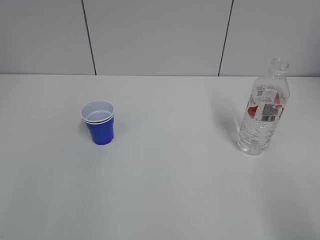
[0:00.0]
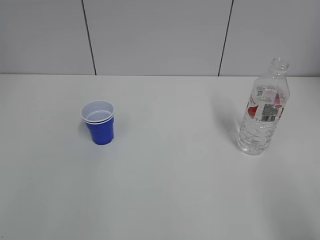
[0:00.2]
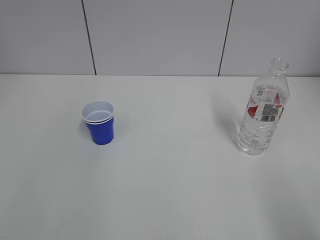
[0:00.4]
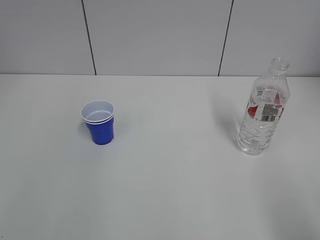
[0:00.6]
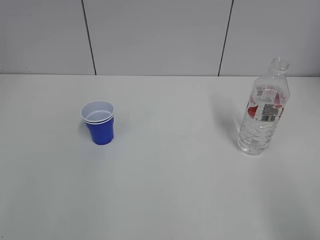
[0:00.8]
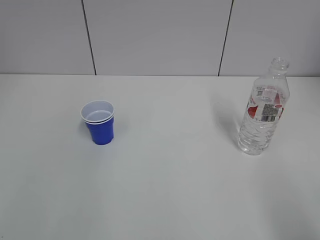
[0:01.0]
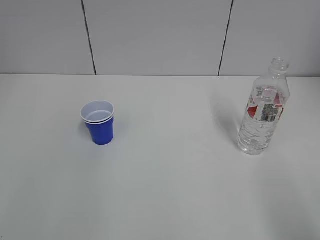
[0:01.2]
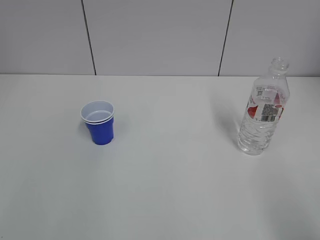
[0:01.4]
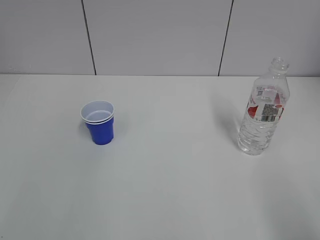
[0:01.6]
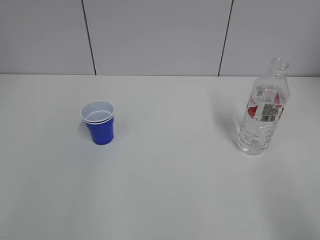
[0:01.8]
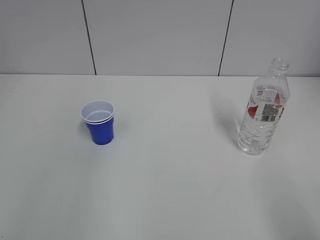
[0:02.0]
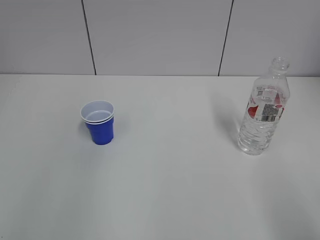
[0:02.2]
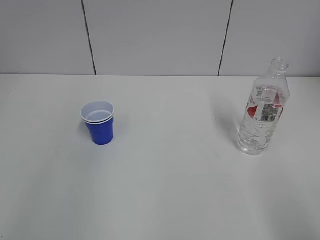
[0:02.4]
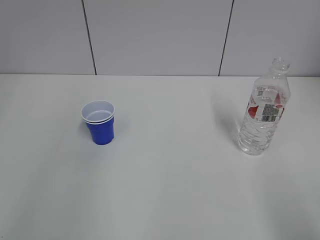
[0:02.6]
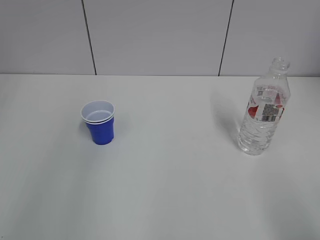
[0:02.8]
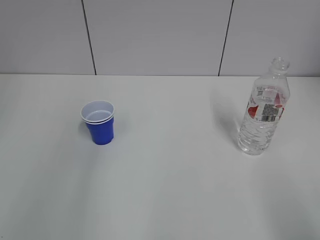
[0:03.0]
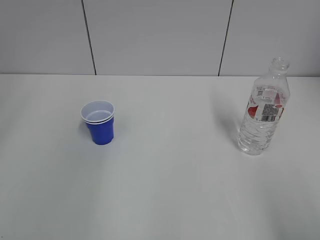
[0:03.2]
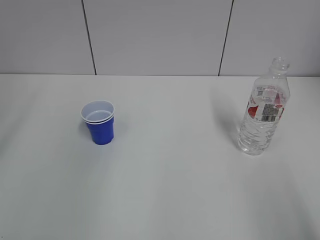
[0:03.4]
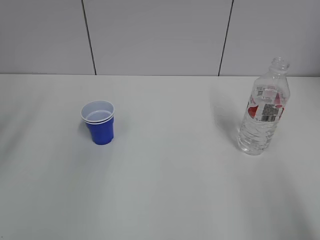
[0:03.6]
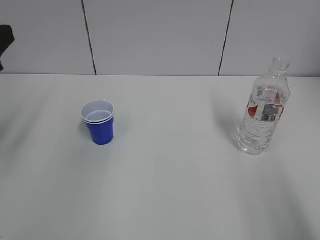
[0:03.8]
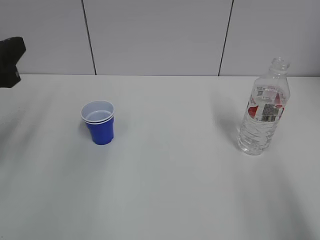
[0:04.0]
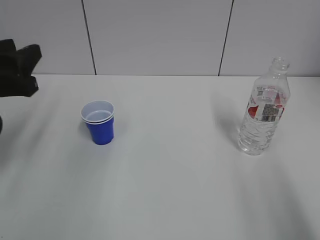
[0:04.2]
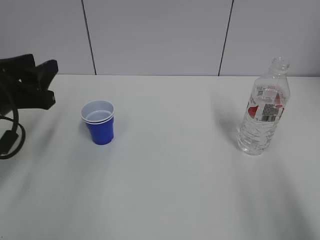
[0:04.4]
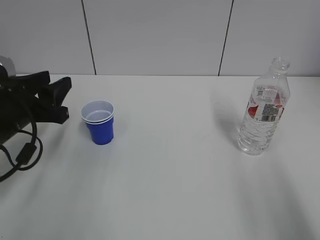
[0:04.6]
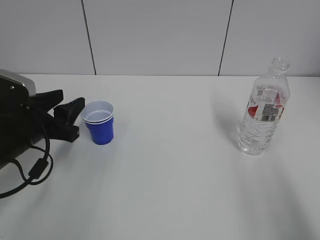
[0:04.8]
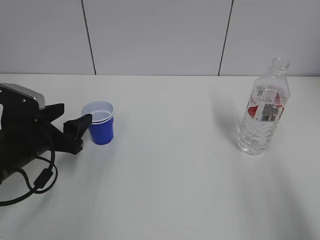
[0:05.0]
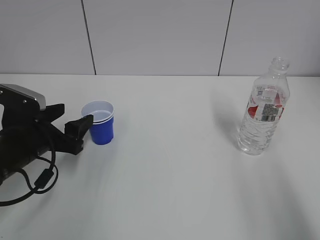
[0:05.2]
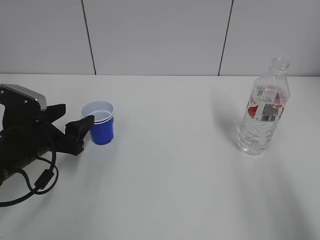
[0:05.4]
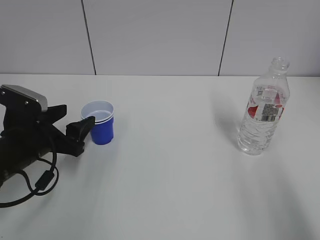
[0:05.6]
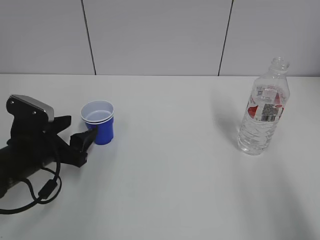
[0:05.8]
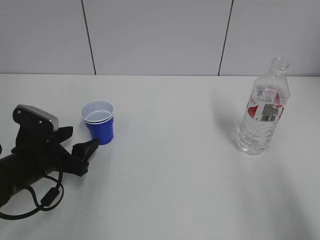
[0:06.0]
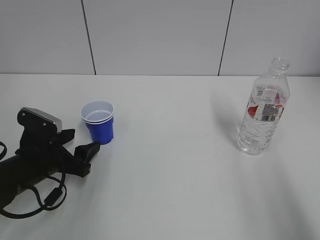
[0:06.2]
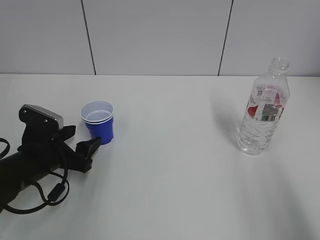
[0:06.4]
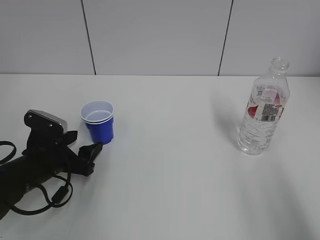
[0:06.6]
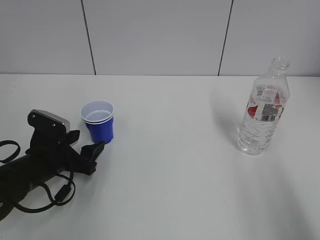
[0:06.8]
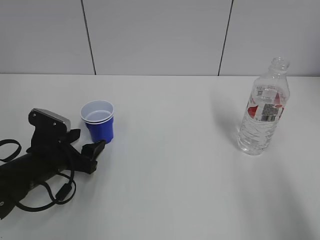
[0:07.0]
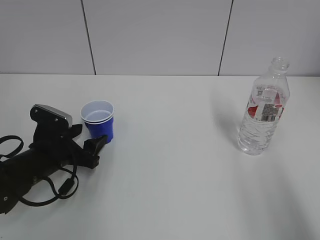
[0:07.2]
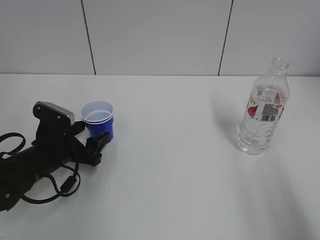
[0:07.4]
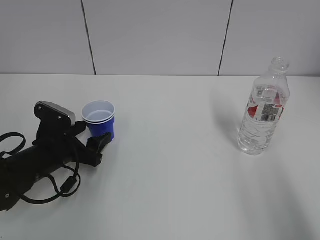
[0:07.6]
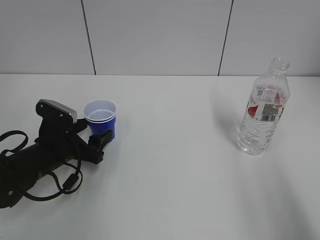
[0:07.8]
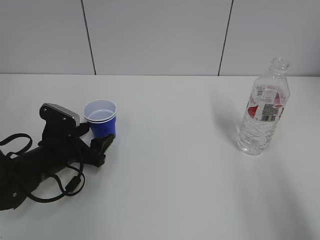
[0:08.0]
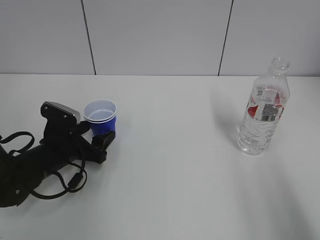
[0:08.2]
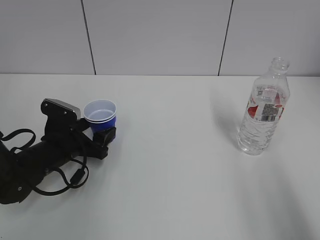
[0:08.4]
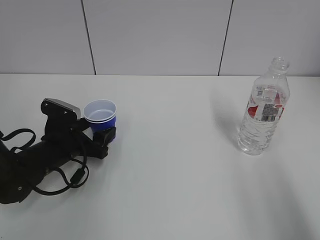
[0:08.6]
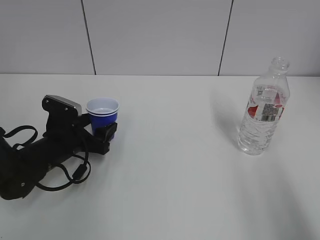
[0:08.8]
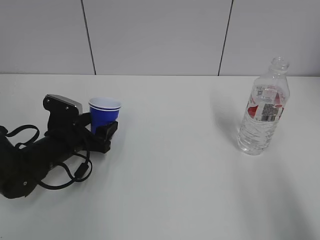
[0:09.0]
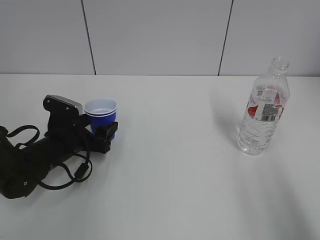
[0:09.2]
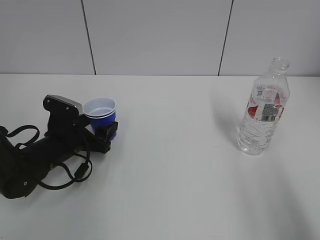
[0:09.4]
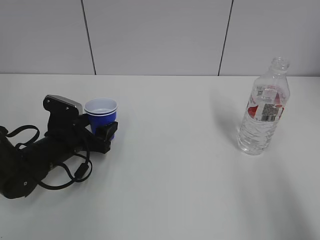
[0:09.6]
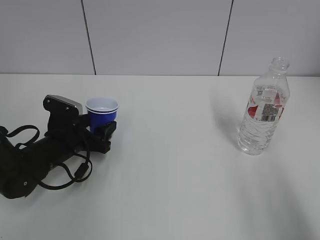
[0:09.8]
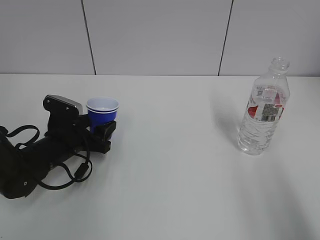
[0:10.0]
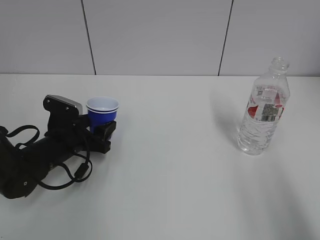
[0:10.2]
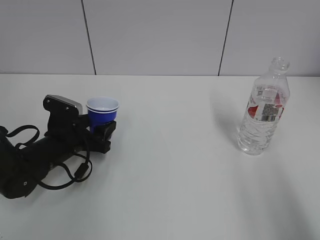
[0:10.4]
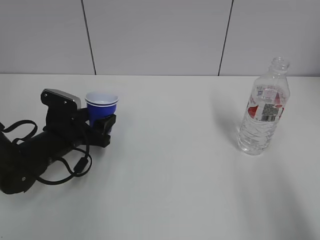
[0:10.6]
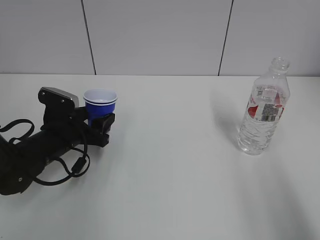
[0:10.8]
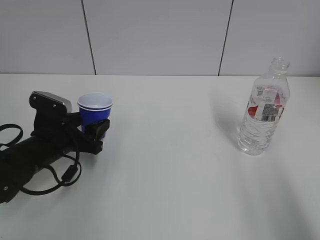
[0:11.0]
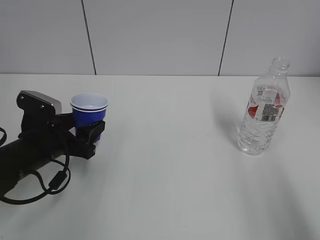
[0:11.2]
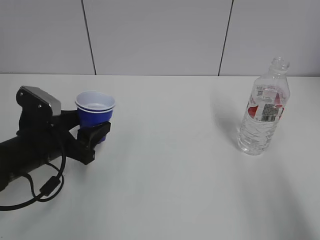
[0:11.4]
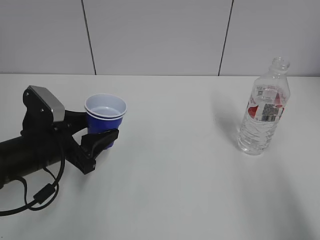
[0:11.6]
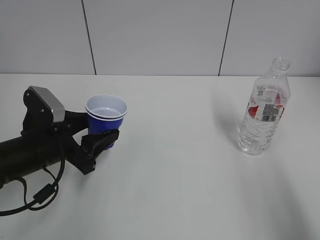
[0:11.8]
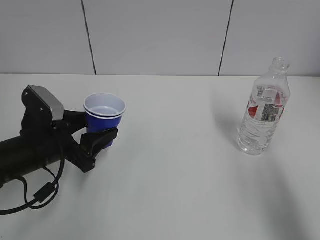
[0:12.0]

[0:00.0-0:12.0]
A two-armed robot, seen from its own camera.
Step, 0:00.0 to 0:09.4: Grab the paper cup with the left hand.
Step, 0:09.6 to 0:11.0: Lift the paper cup with the left hand.
0:03.0 to 0:04.4: The left gripper travels downward, forward and to the right by about 20 cm.
0:04.4 to 0:06.0: The left gripper heads downward, covering some 15 cm, and opens.
0:06.0 to 0:07.6: The grippers stay close to where they were, moving slightly.
0:07.6 to 0:09.0: There are only small adjustments of the grippers.
0:09.0 to 0:10.4: Both grippers stay put.
0:10.4 to 0:12.0: The left gripper is displaced upward and backward by roughly 10 cm.

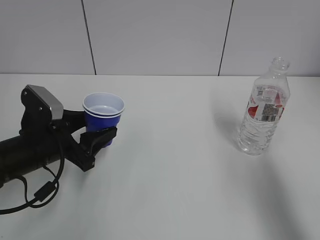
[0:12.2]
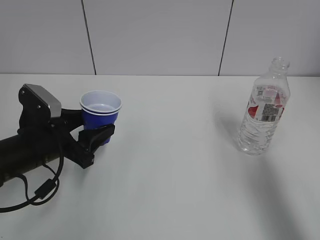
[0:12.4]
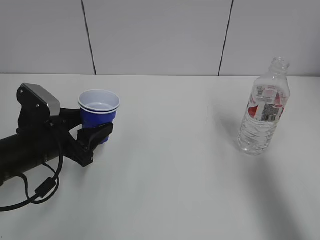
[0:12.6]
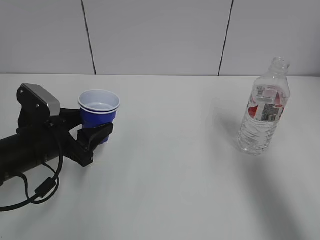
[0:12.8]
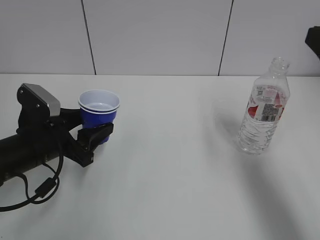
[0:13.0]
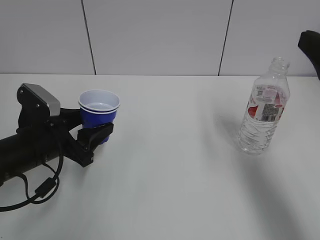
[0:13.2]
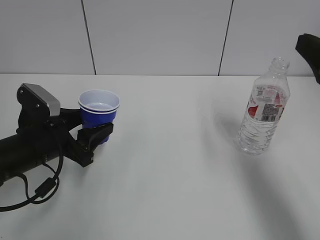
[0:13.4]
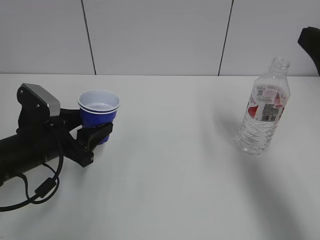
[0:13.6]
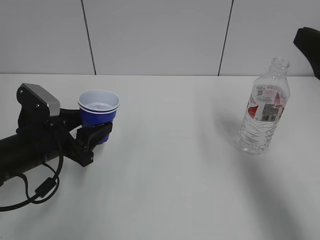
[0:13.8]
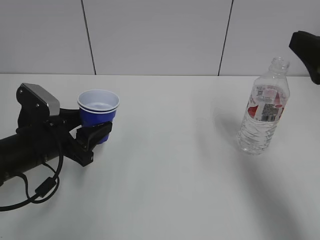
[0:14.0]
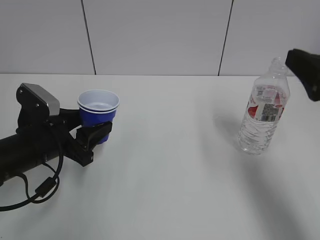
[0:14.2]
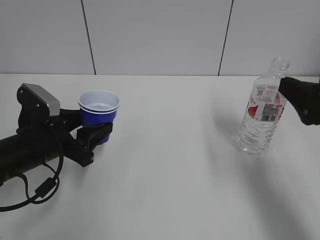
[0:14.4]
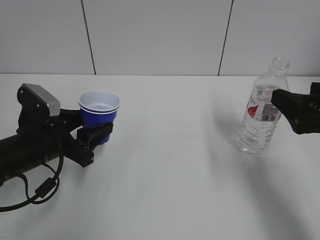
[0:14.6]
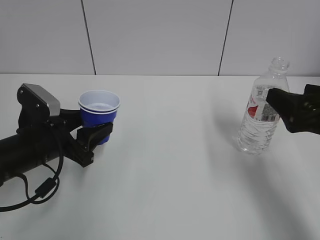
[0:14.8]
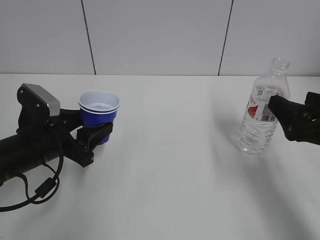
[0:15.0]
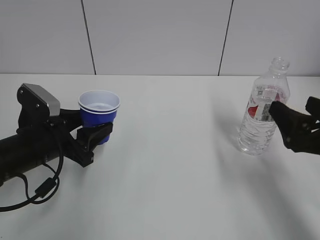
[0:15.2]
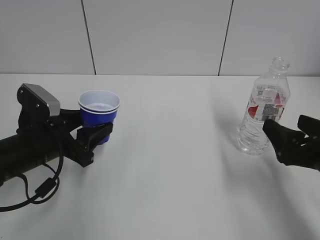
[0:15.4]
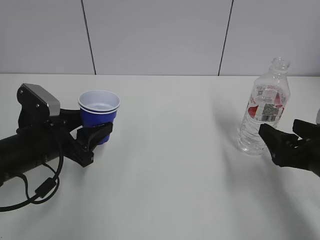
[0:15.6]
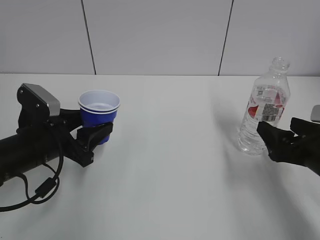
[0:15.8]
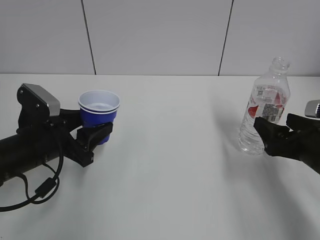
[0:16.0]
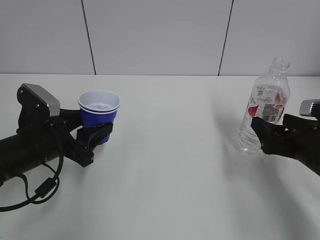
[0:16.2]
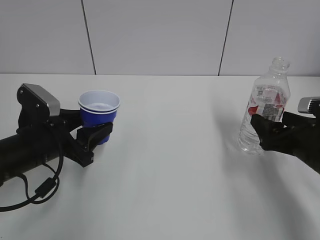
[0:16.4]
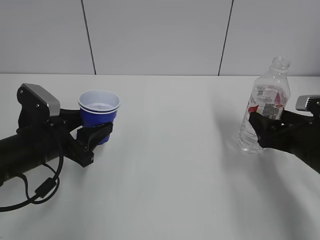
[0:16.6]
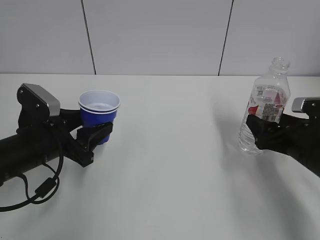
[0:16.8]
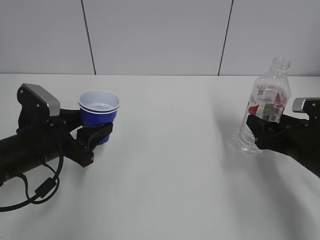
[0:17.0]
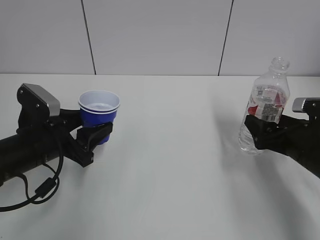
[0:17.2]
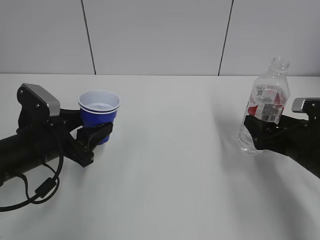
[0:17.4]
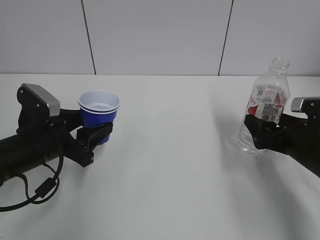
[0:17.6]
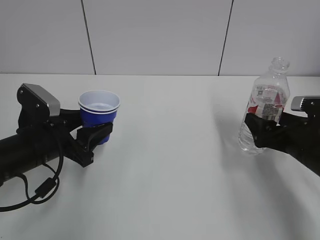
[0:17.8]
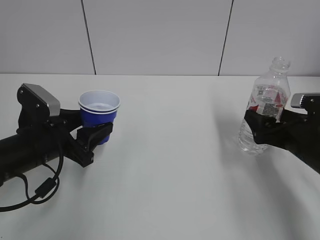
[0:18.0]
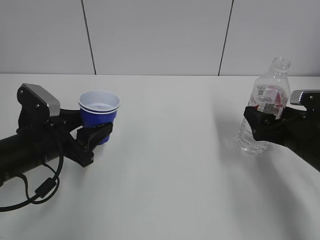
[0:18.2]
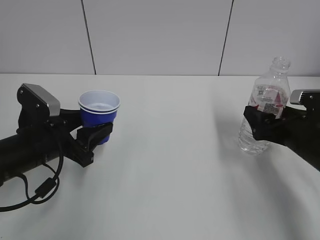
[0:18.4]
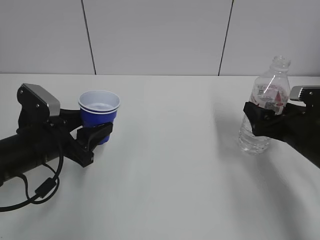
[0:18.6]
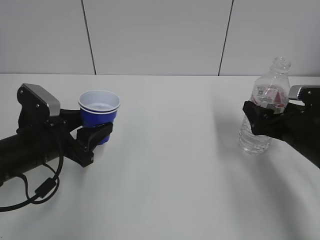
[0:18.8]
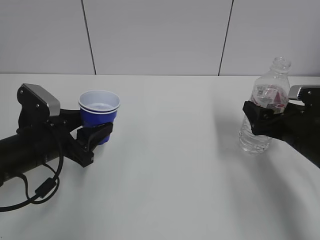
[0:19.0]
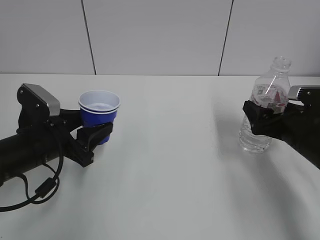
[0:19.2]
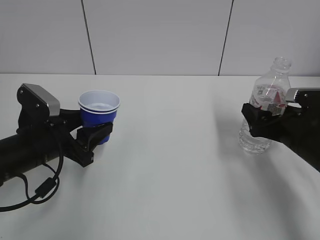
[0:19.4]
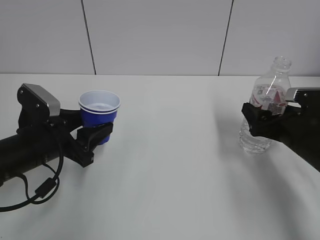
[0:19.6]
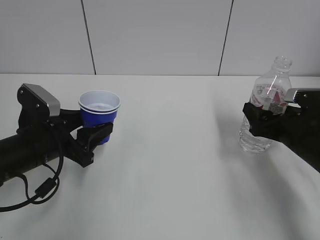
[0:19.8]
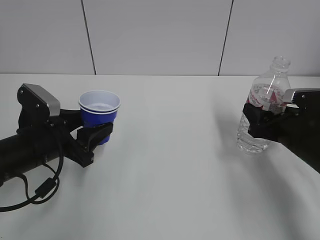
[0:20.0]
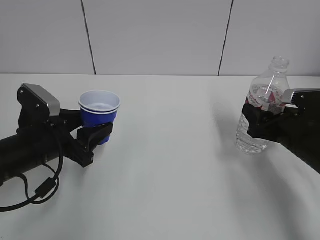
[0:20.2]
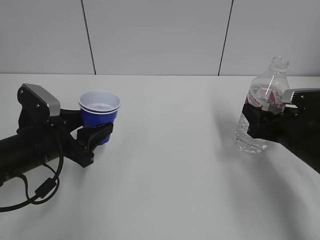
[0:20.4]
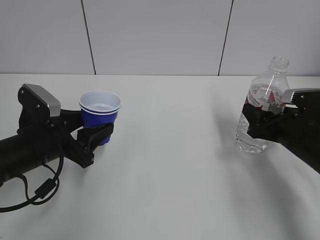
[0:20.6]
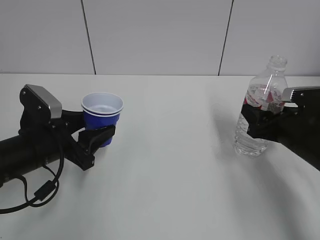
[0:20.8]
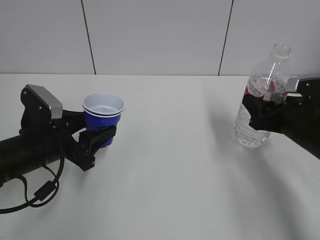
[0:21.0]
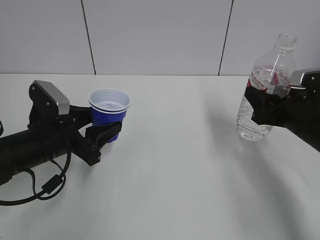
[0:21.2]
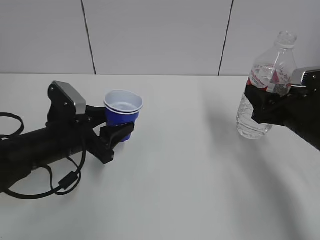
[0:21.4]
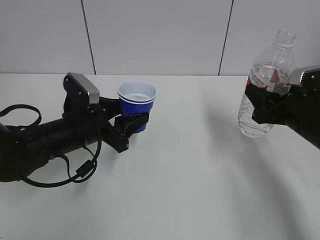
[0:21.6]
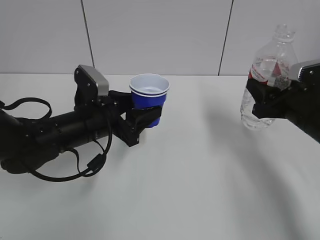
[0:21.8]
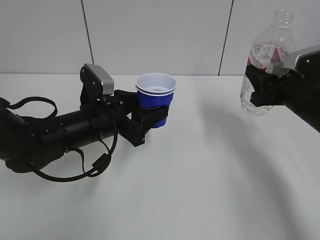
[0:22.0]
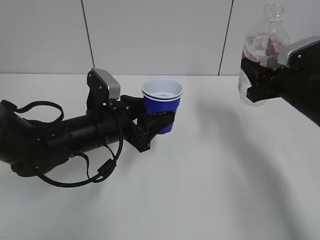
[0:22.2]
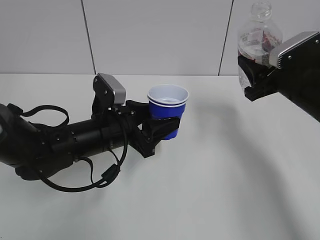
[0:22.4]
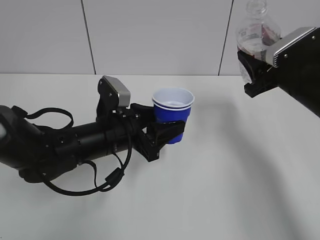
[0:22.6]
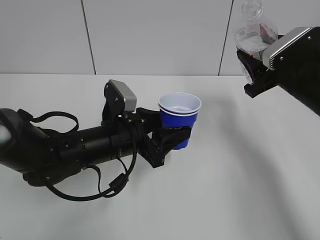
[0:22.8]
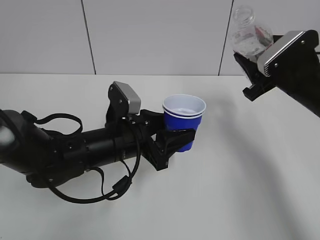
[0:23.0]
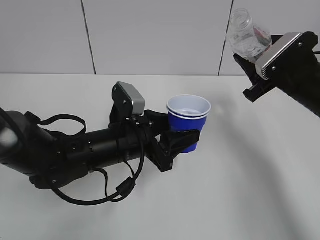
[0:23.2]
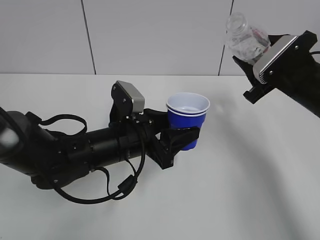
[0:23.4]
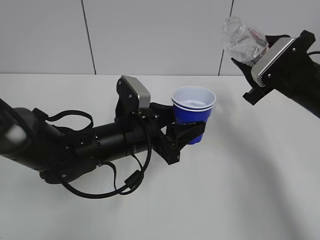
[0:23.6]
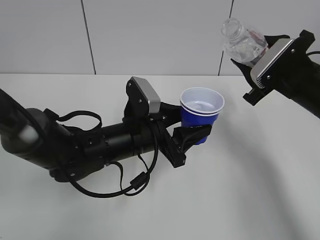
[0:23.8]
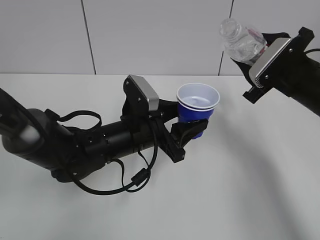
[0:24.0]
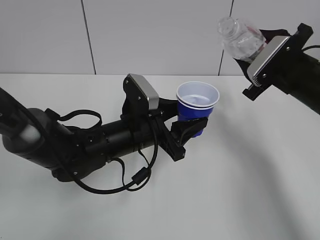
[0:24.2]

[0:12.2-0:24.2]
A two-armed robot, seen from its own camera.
Step, 0:12.2 to 0:20.8: Grab the water bottle with the right hand.
0:12.2 to 0:13.8: The right gripper heads forward, covering about 10 cm, and opens up.
0:13.8 to 0:15.2: The right gripper shifts roughly 10 cm downward.
0:15.2 to 0:16.6: The right gripper travels forward and downward by some 10 cm.
0:16.6 to 0:18.2: The grippers stay close to where they were, moving slightly.
0:18.2 to 0:19.8: The right gripper closes its fingers.
0:19.8 to 0:21.2: The right gripper closes up.
0:21.2 to 0:22.6: The right gripper heads upward, covering some 5 cm. The left gripper goes roughly 10 cm to the right.
